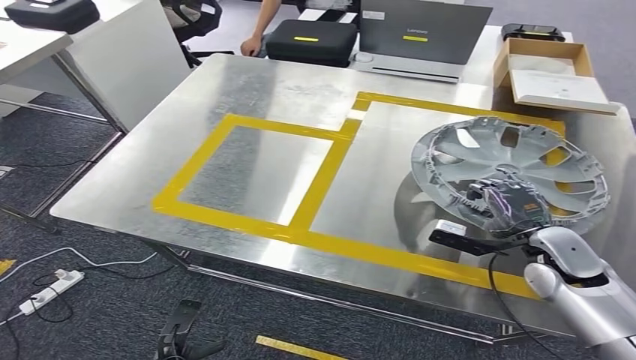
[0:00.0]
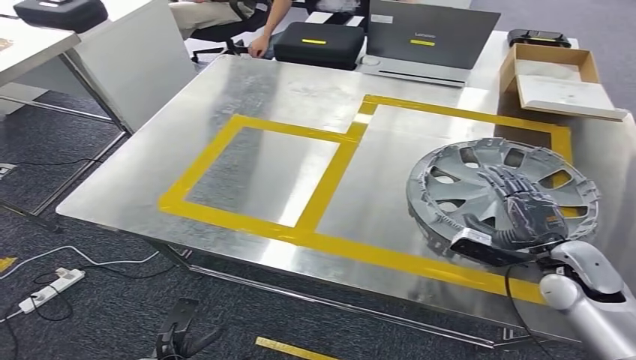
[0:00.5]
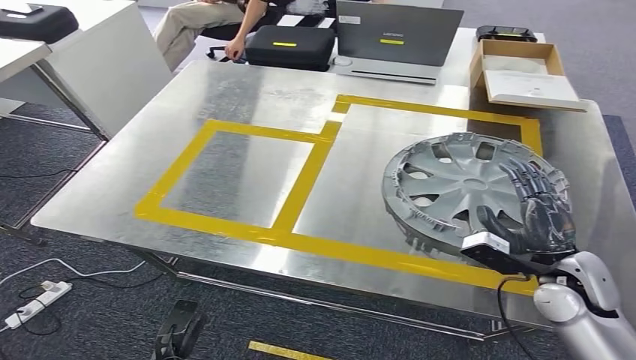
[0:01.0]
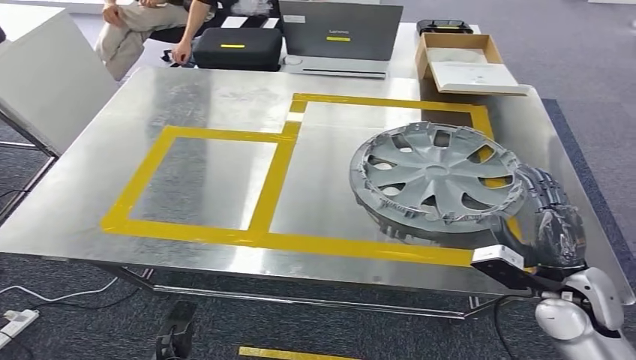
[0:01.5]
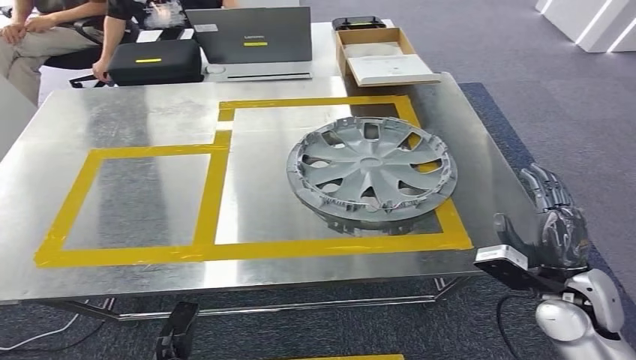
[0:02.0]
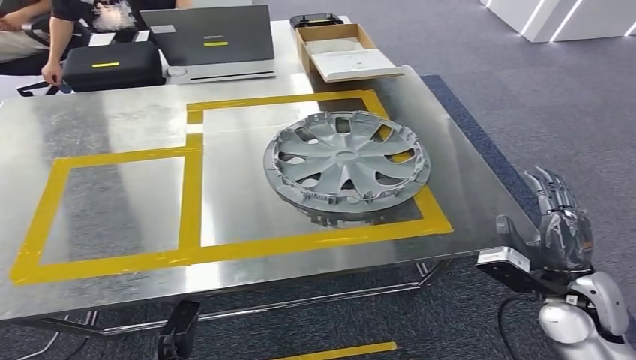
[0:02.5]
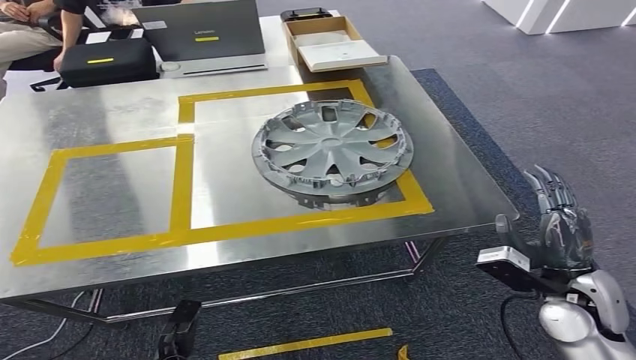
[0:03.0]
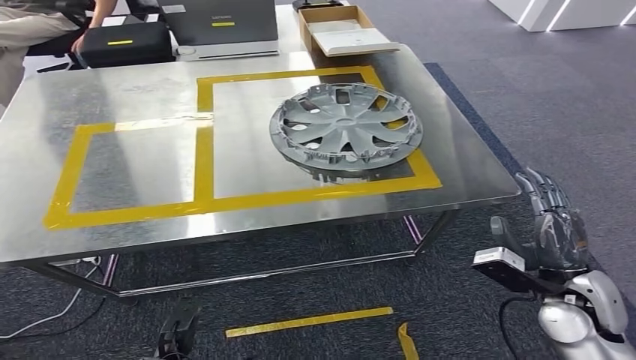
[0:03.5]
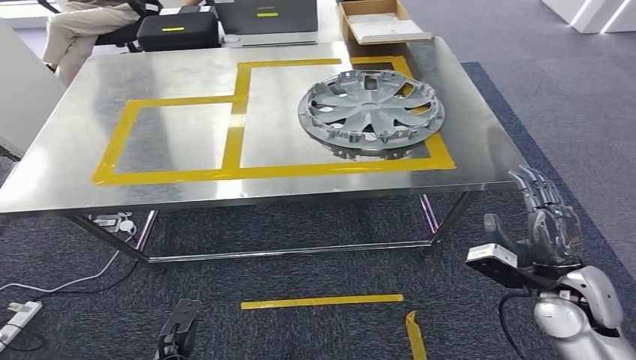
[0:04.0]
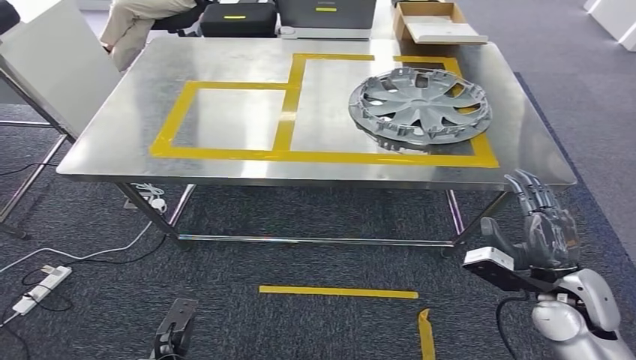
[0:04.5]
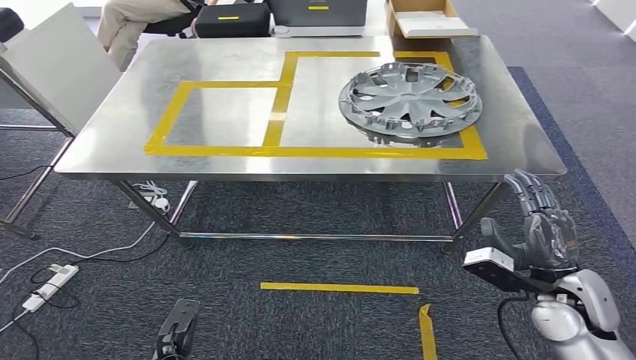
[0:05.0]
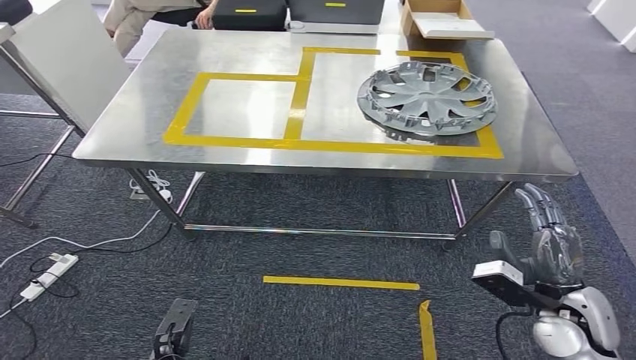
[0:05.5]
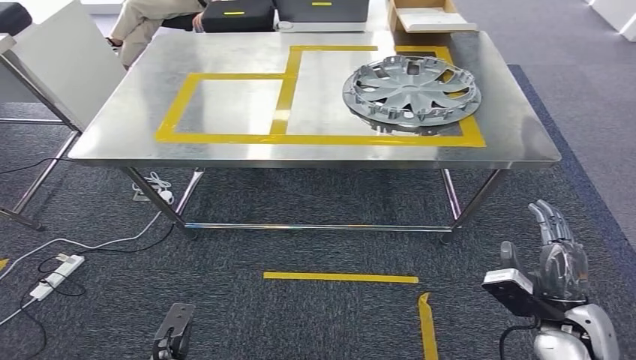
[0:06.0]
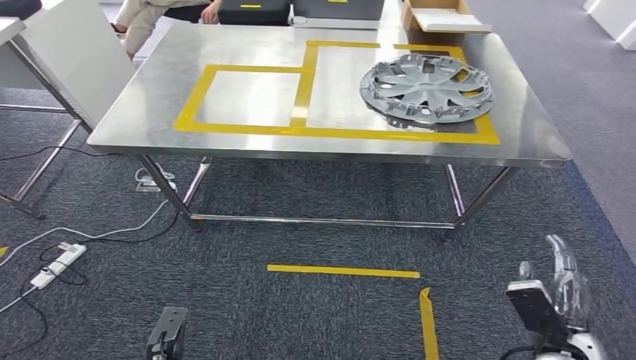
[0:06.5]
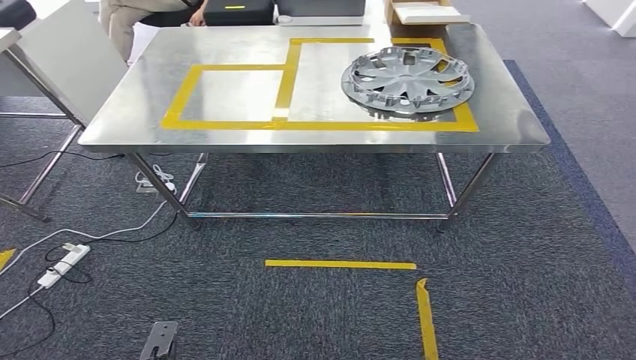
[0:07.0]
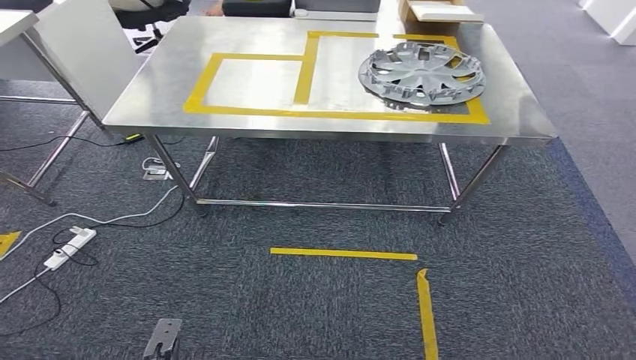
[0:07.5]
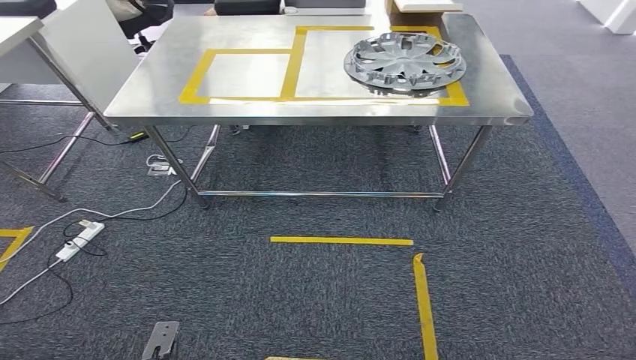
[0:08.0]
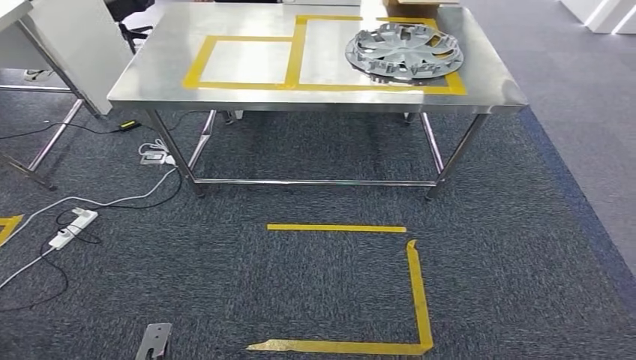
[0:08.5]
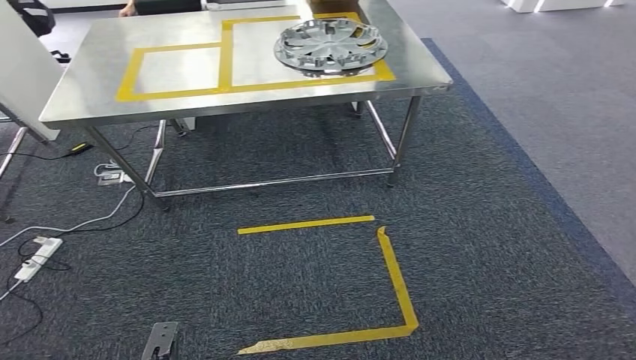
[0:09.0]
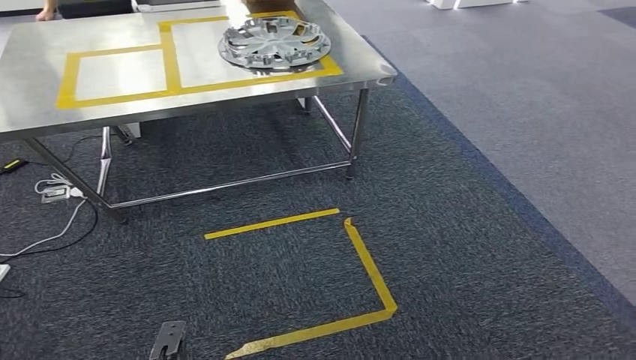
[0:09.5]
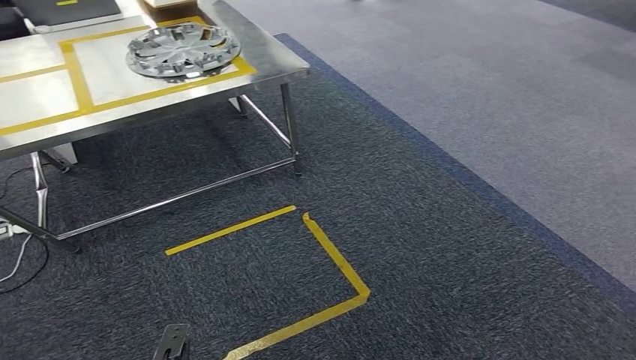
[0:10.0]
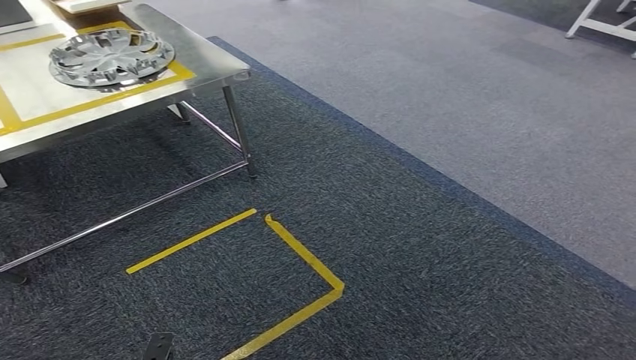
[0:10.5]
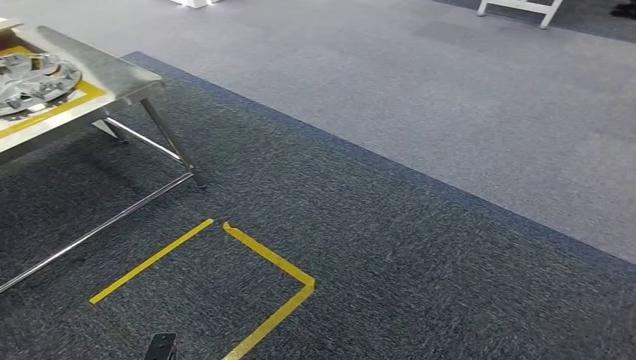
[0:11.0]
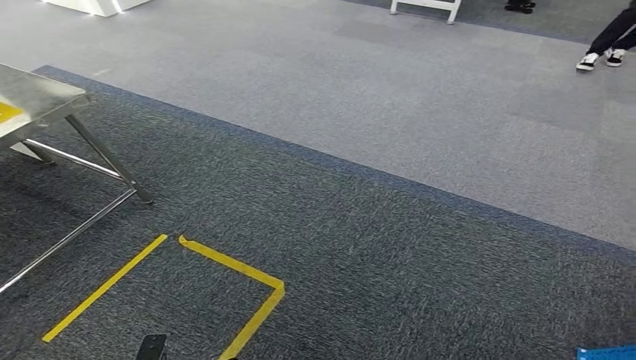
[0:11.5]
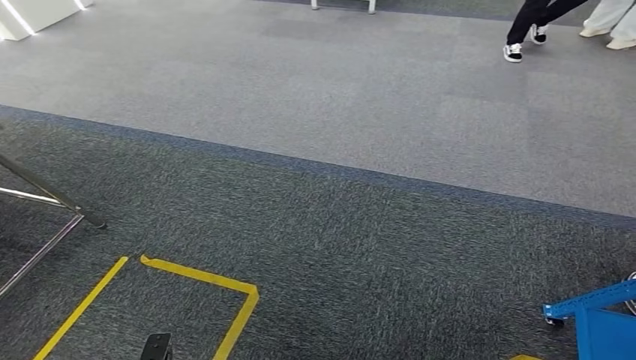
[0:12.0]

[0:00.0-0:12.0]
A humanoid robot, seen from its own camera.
Step, 0:00.0 to 0:02.5: Insert the small parts into the corresponding holes on the workbench.

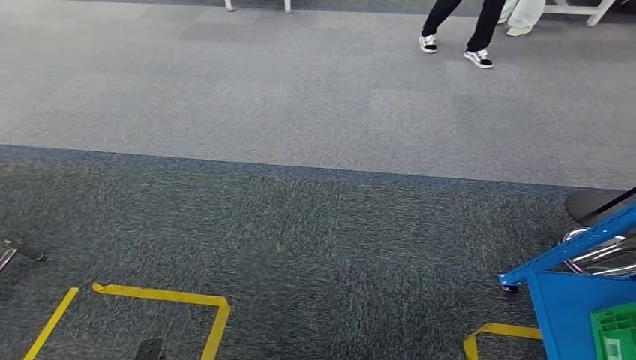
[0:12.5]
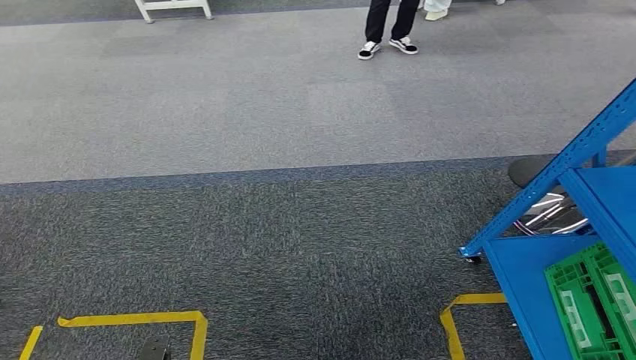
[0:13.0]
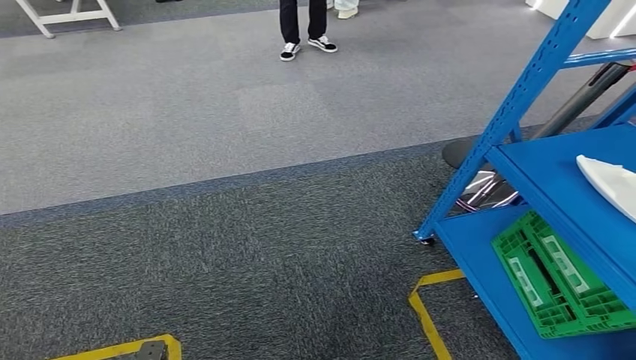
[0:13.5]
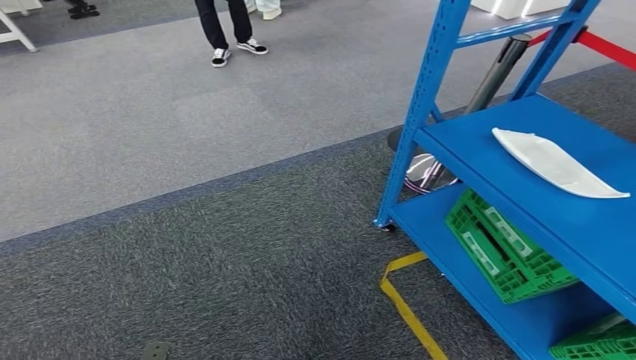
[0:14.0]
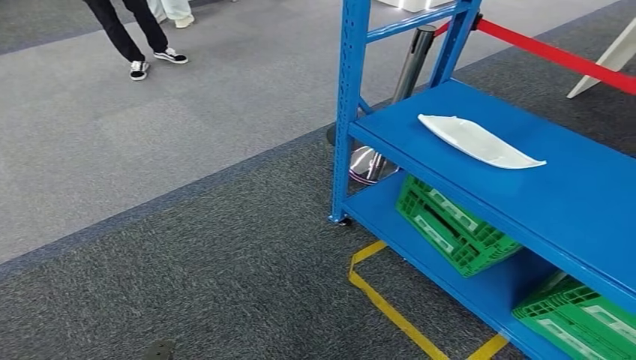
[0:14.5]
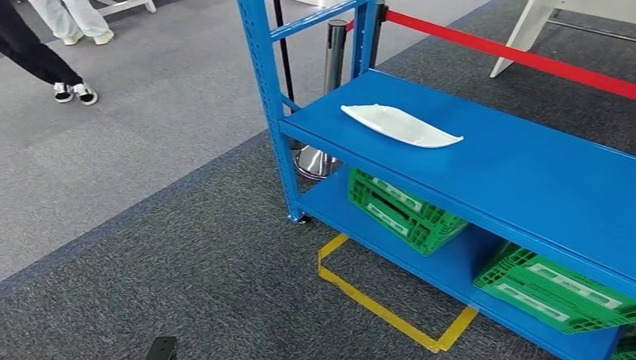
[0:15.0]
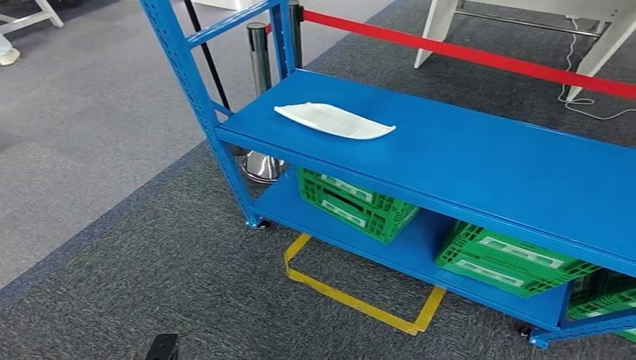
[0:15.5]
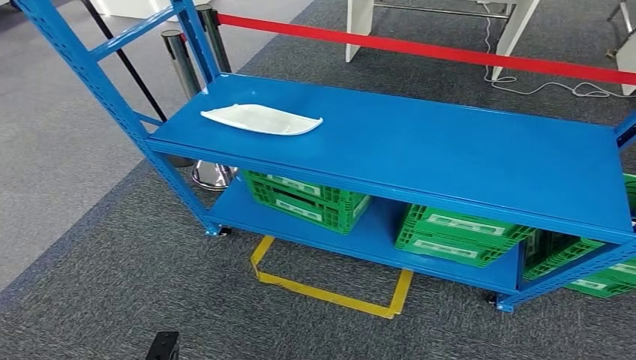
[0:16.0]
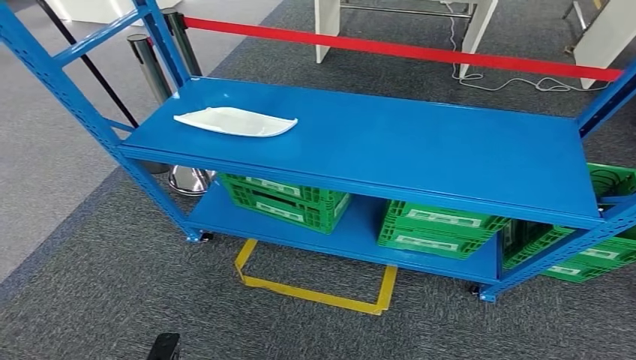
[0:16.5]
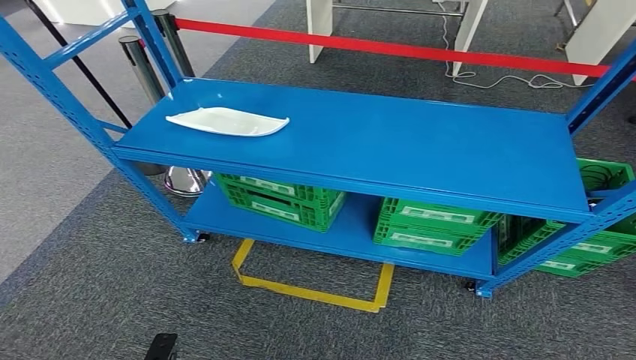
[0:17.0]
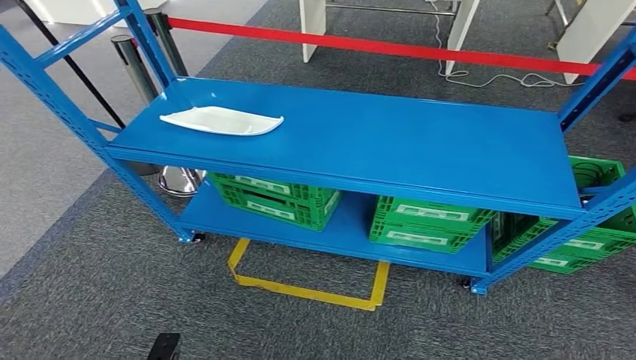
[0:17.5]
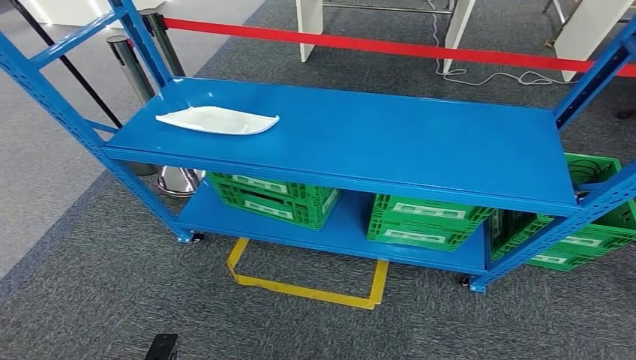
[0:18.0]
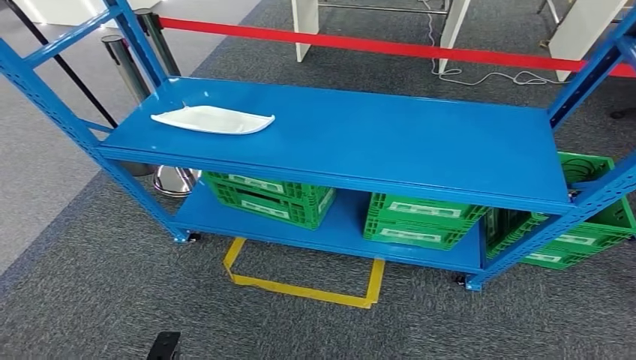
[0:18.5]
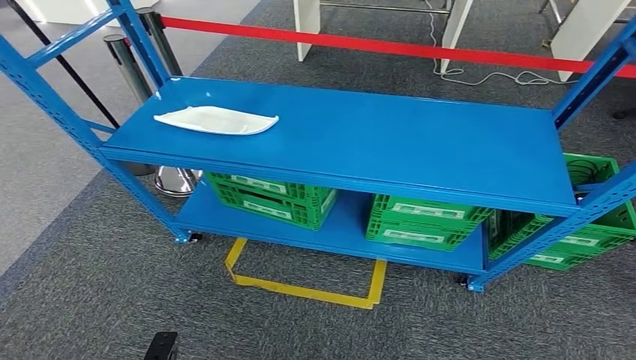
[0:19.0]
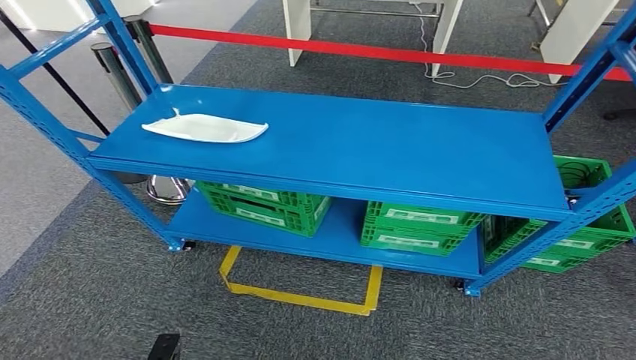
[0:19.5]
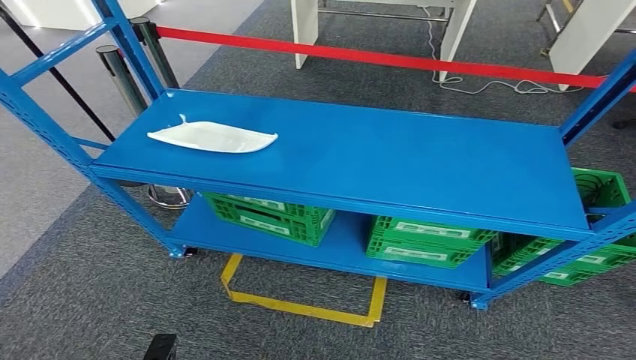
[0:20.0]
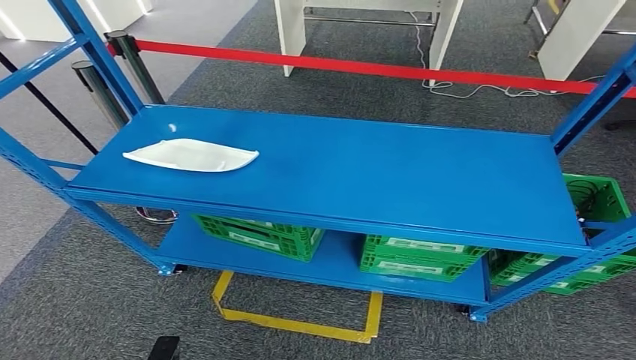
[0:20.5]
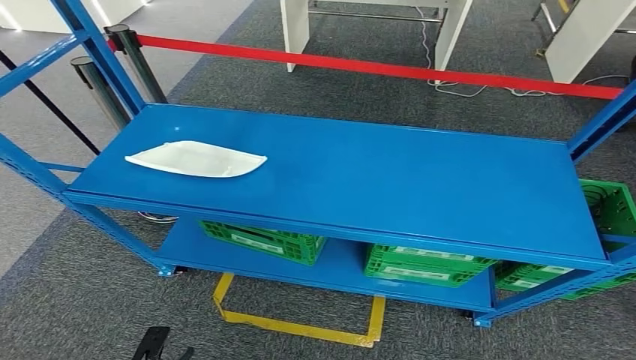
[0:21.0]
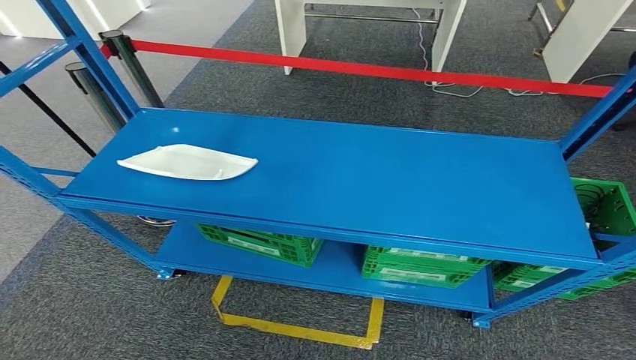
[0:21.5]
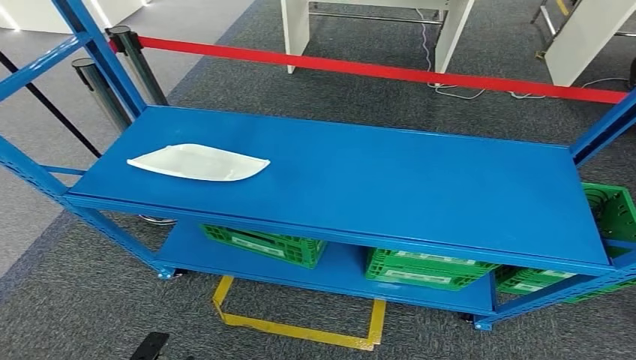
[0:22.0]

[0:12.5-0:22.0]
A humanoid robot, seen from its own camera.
Step, 0:12.5 to 0:22.0: Move to the initial position of the workbench.
